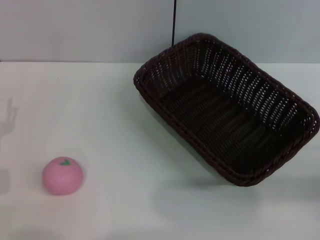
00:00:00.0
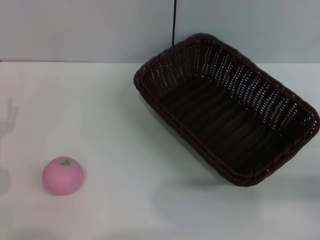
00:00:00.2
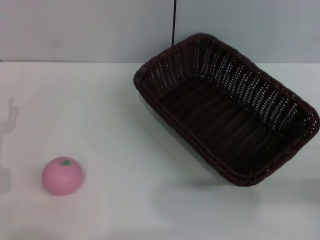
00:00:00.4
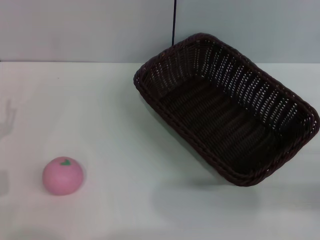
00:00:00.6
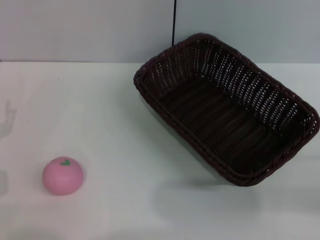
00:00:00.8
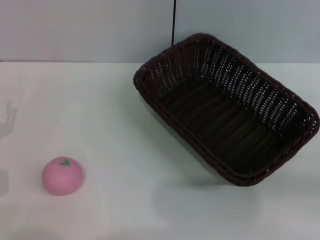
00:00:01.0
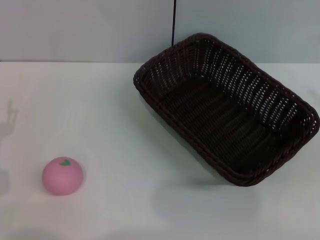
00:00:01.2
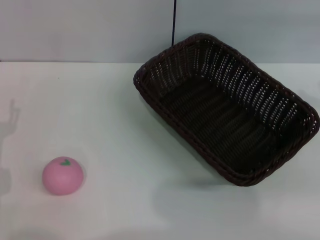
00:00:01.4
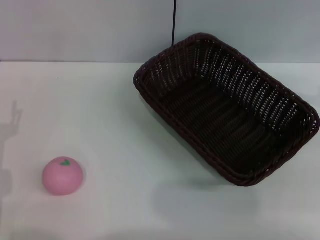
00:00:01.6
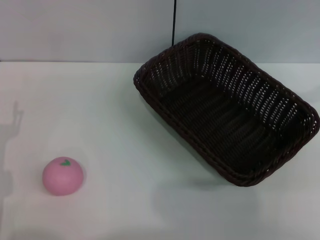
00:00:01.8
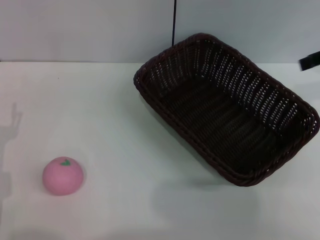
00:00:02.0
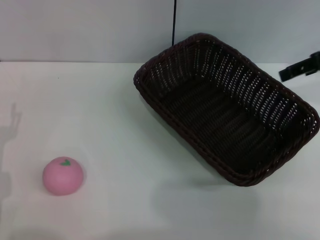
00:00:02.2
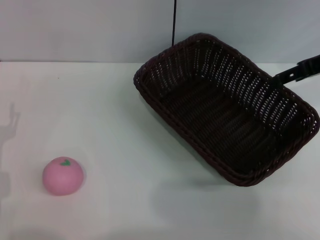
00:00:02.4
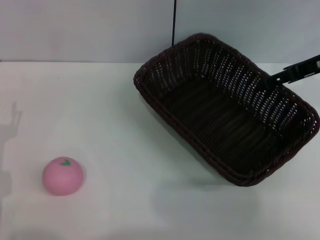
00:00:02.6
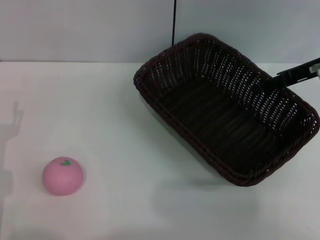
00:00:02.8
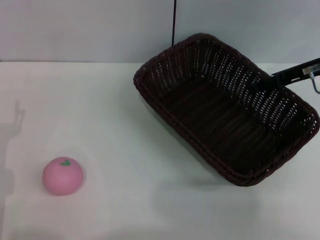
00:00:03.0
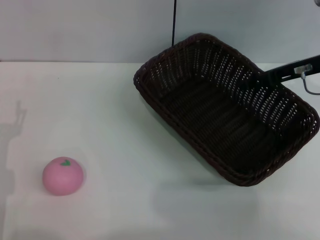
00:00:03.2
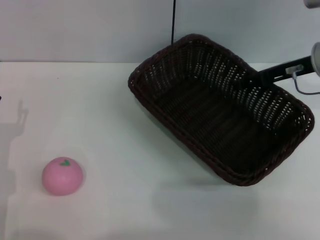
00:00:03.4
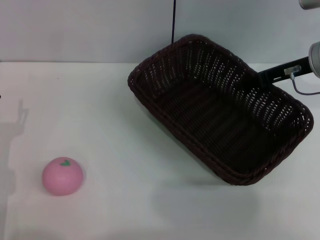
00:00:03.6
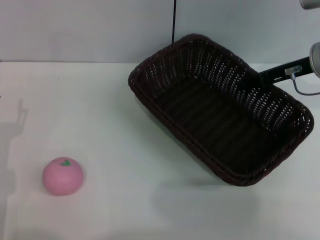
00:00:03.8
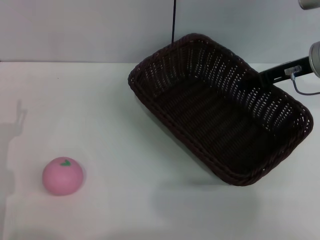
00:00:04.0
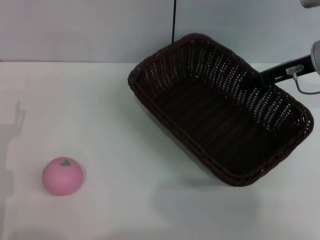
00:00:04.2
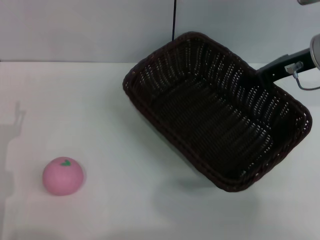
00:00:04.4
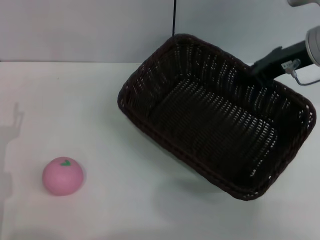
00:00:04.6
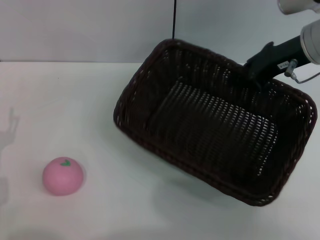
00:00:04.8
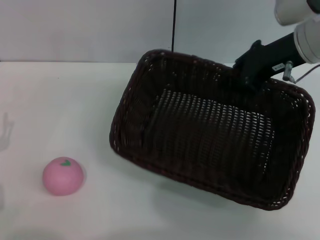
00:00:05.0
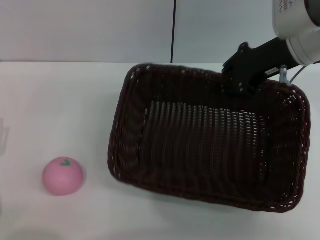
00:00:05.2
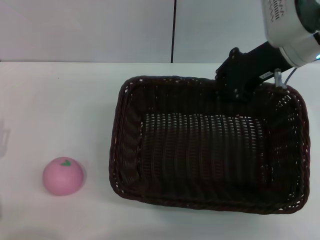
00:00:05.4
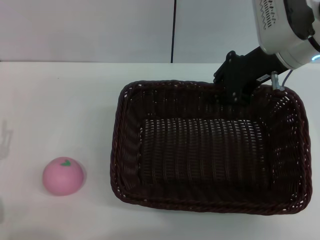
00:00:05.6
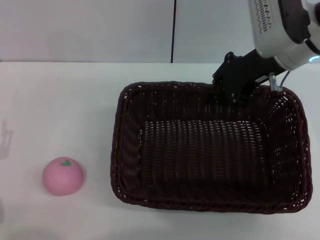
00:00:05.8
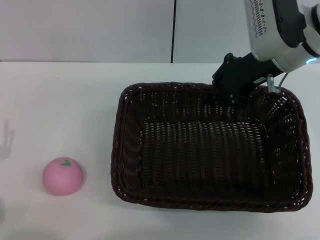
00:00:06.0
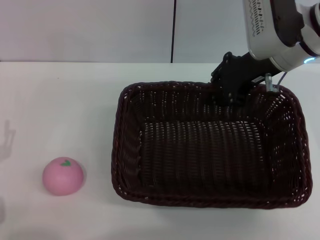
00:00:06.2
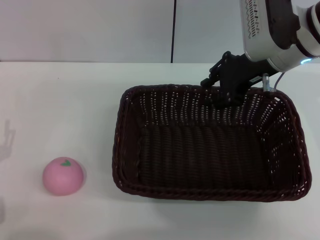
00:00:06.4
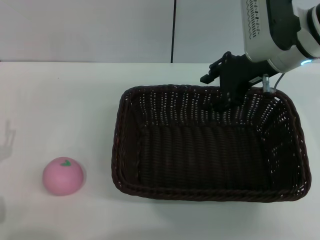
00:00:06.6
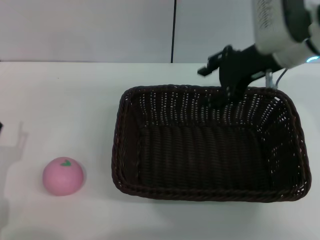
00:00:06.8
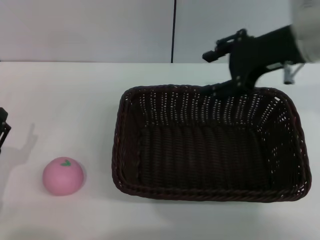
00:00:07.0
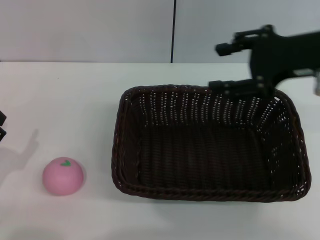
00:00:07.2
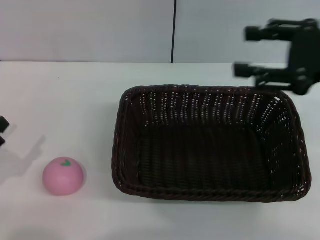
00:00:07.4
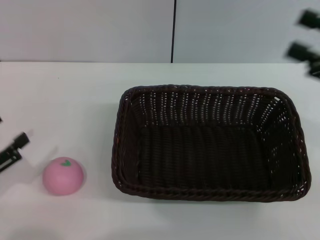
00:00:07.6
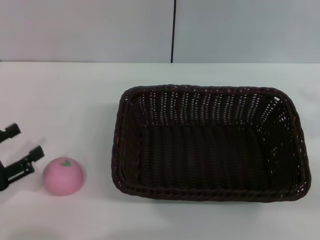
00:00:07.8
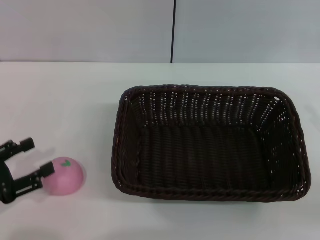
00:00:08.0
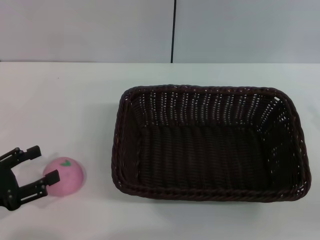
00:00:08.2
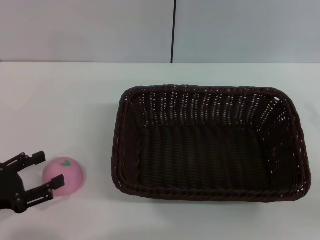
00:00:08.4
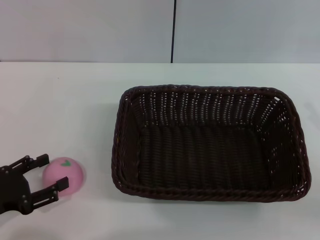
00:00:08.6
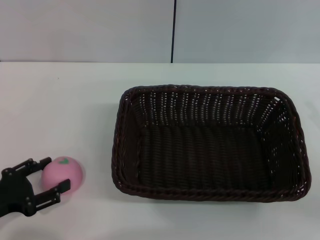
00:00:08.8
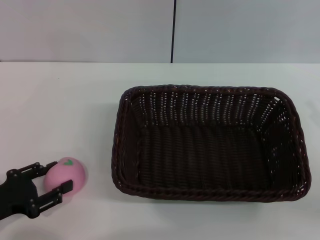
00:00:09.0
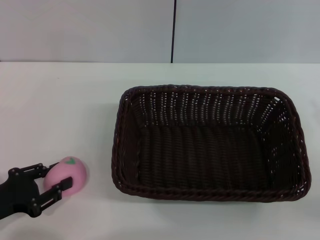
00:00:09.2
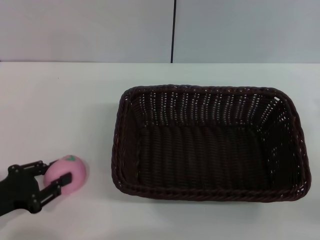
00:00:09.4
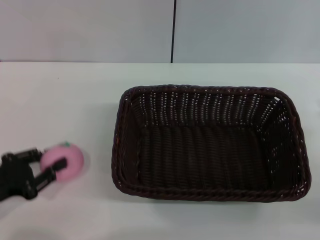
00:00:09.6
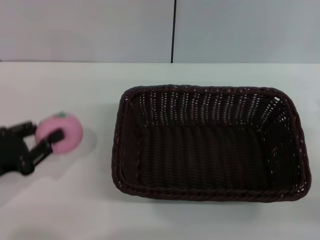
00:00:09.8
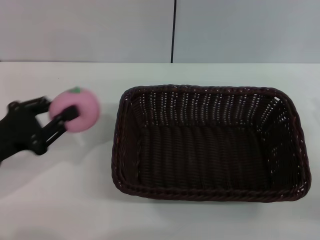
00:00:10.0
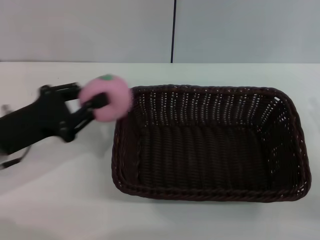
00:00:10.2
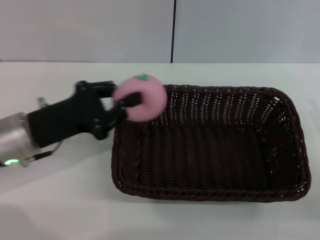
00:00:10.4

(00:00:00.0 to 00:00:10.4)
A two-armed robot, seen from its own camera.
Step, 00:00:00.0 - 00:00:04.6: Pick up the dark basket with the right gripper.
Step, 00:00:04.8 - 00:00:07.0: Place the dark basket in the center of view with the right gripper.
Step, 00:00:07.4 - 00:00:10.0: Pick up the peach with the left gripper.
00:00:01.4 - 00:00:03.0: The right gripper travels to the left and forward by some 15 cm.
00:00:03.0 - 00:00:04.4: The right gripper closes its fingers.
00:00:04.4 - 00:00:06.0: The right gripper travels to the left by about 5 cm.
00:00:06.0 - 00:00:07.4: The left gripper shifts about 5 cm to the left; the right gripper goes roughly 15 cm backward and to the right, and opens its fingers.
00:00:07.4 - 00:00:09.0: The right gripper moves downward, to the right and backward, about 20 cm.
00:00:09.0 - 00:00:10.4: The left gripper goes about 15 cm forward, to the right and upward, and closes its fingers.

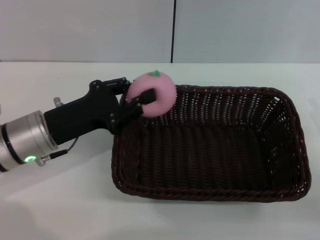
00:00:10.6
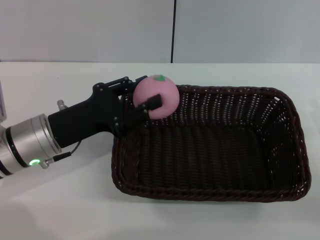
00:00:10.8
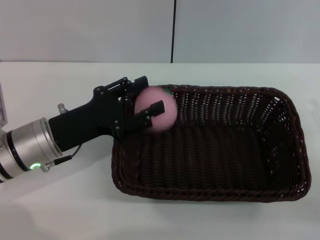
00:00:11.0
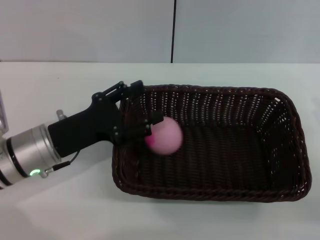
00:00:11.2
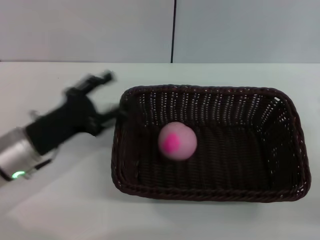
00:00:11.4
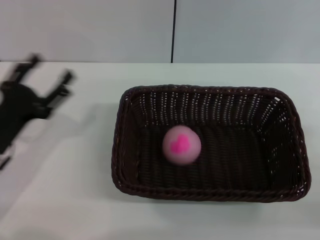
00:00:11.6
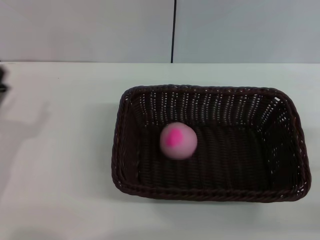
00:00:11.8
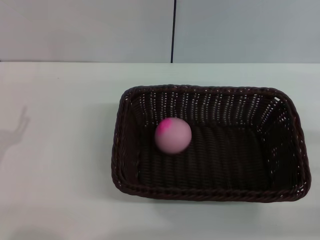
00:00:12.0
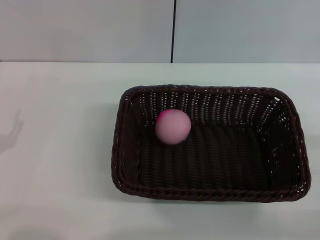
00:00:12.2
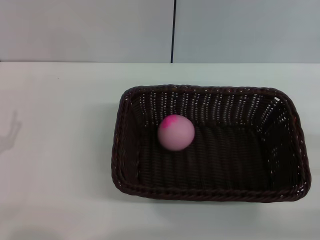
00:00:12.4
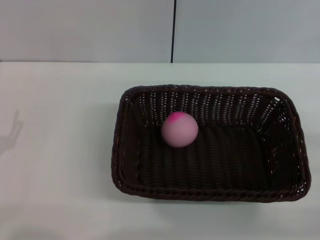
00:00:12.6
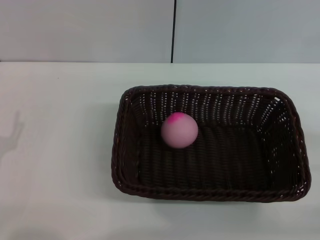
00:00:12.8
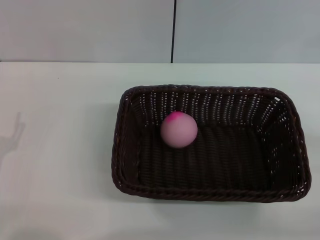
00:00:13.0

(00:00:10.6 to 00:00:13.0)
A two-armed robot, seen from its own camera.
Step, 00:00:10.6 - 00:00:11.4: Place the peach into the basket with the left gripper.
00:00:10.6 - 00:00:11.8: The left gripper is displaced to the left and backward by some 10 cm, and opens its fingers.
00:00:11.8 - 00:00:13.0: There are only small adjustments of the grippers.

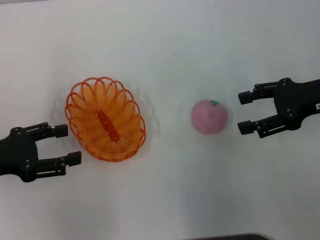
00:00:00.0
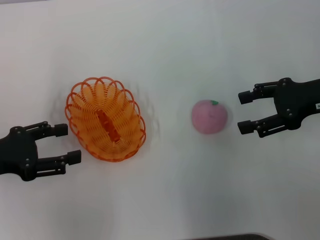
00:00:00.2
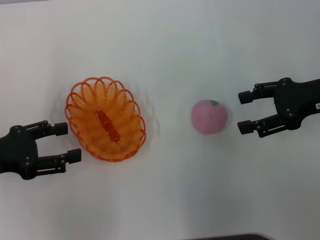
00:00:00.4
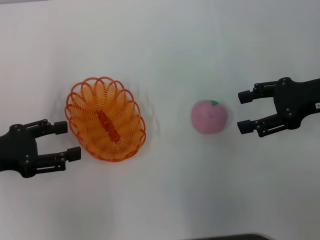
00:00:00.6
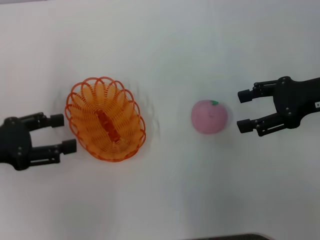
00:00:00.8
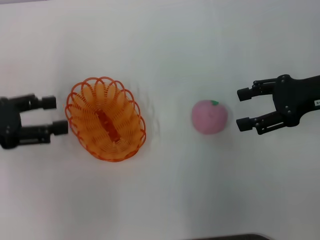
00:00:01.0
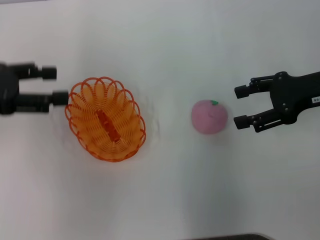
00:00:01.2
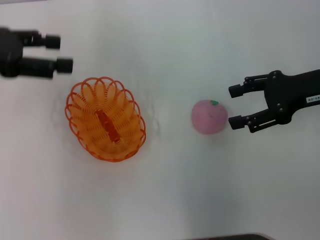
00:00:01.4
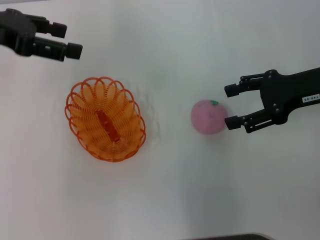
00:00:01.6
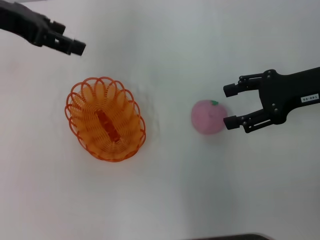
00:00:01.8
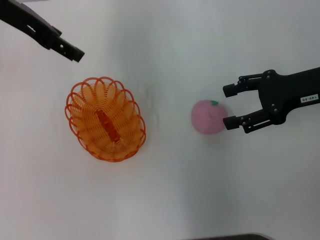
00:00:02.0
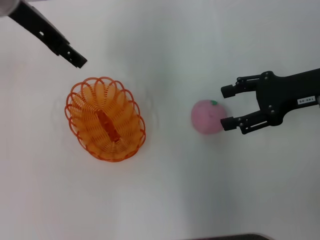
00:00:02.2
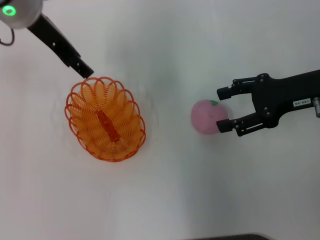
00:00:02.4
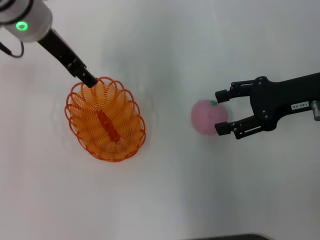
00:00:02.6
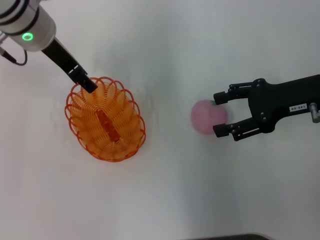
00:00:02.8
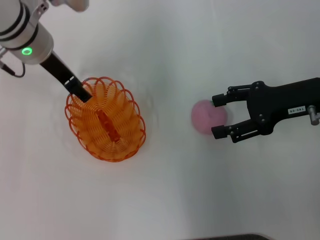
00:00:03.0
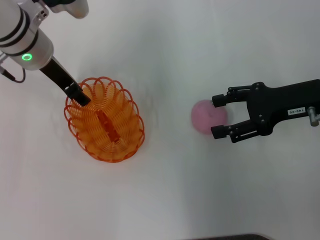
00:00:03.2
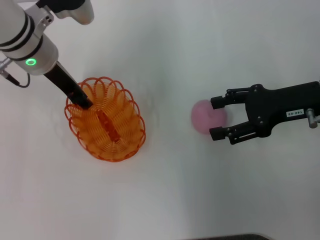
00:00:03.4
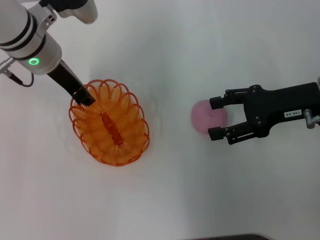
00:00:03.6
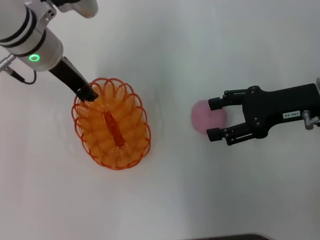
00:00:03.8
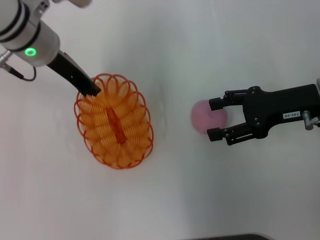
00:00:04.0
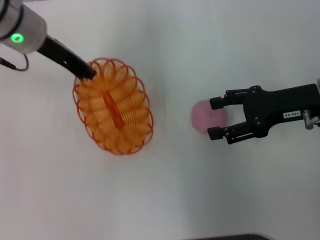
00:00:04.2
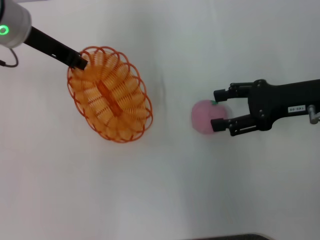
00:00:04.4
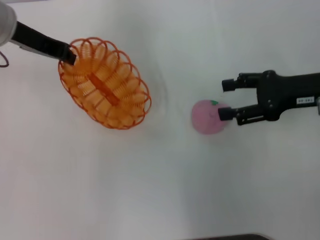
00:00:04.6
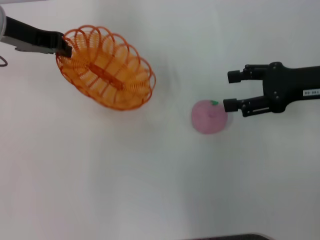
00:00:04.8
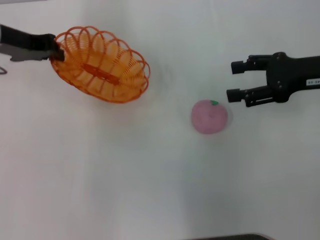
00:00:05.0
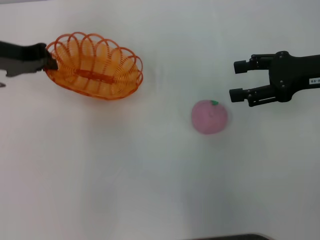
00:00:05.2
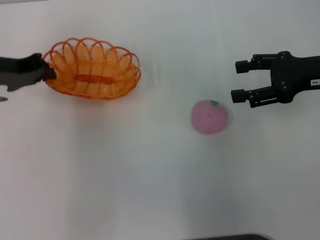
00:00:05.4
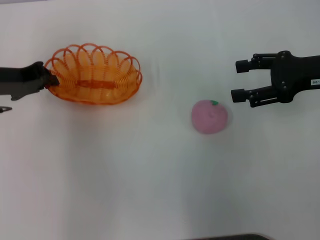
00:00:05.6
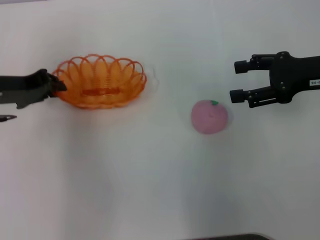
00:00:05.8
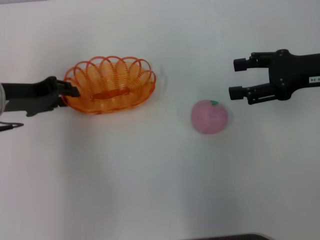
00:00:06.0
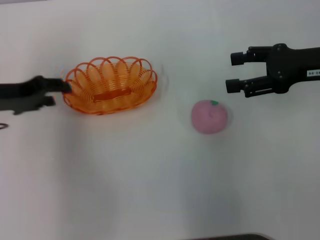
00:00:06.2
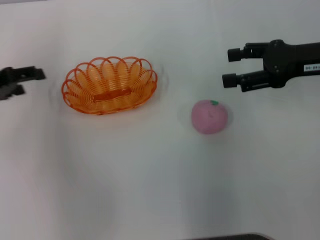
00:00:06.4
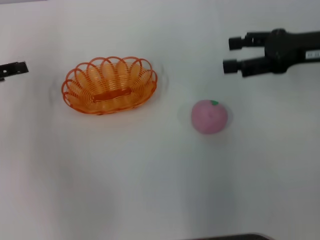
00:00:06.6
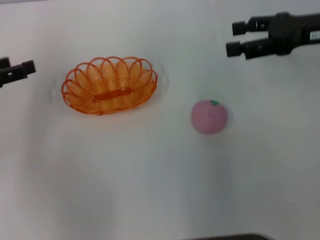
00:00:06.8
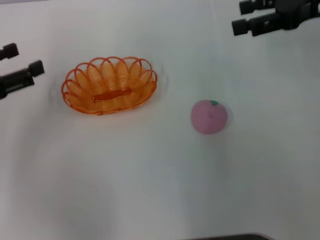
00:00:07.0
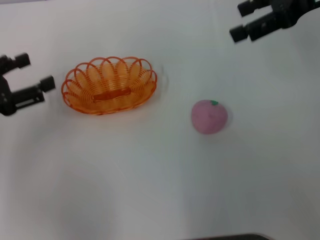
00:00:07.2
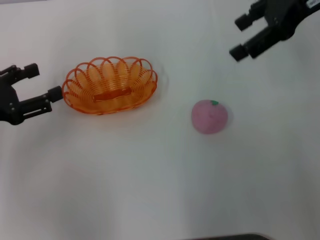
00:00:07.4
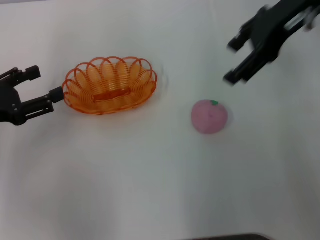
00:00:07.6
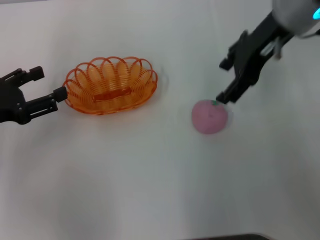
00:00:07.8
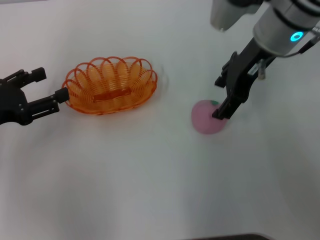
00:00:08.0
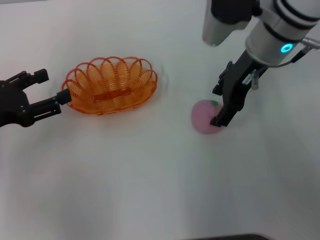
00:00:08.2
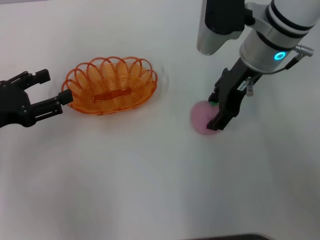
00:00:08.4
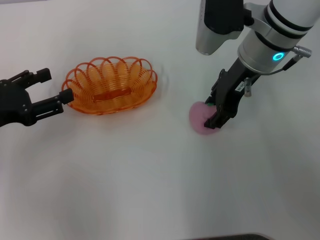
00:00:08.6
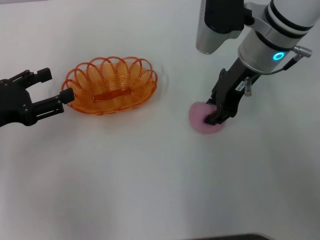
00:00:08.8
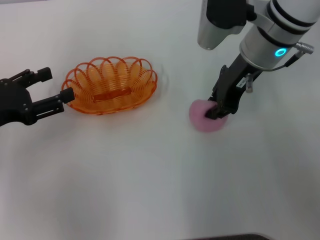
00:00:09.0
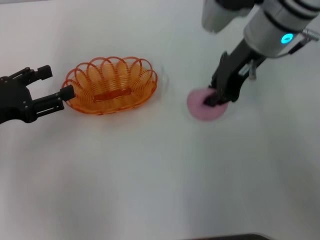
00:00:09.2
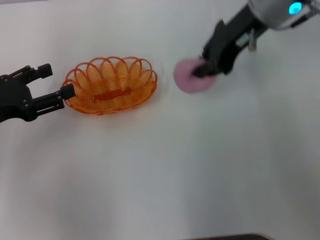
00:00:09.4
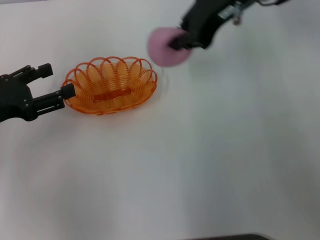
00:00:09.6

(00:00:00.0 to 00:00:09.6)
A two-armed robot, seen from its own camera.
Step, 00:00:00.0 - 00:00:04.4: Pick up the basket with the left gripper.
Step, 00:00:04.8 - 00:00:06.4: Place the basket in the center of view with the left gripper.
Step, 00:00:06.6 - 00:00:09.4: Pick up the peach with the right gripper.
00:00:00.0 - 00:00:01.6: The left gripper heads upward and forward, covering some 20 cm.
00:00:01.6 - 00:00:03.2: The left gripper heads to the right and downward, covering approximately 15 cm.
00:00:03.2 - 00:00:04.8: The left gripper goes roughly 5 cm to the left, and closes.
00:00:04.8 - 00:00:06.4: The left gripper shifts approximately 15 cm to the left, backward and downward, and opens its fingers.
00:00:06.4 - 00:00:08.0: The right gripper is displaced to the left and forward by some 15 cm. The left gripper moves backward, some 5 cm.
00:00:08.0 - 00:00:09.6: The right gripper shifts approximately 5 cm upward, and closes.
